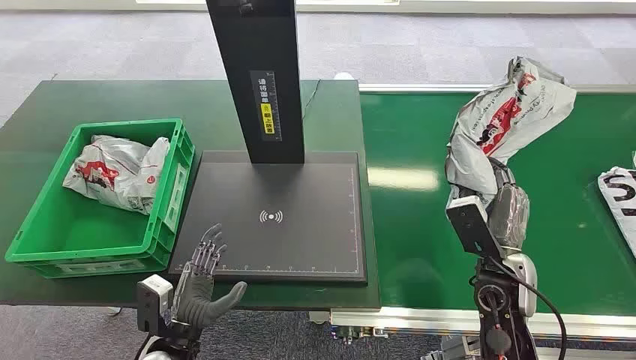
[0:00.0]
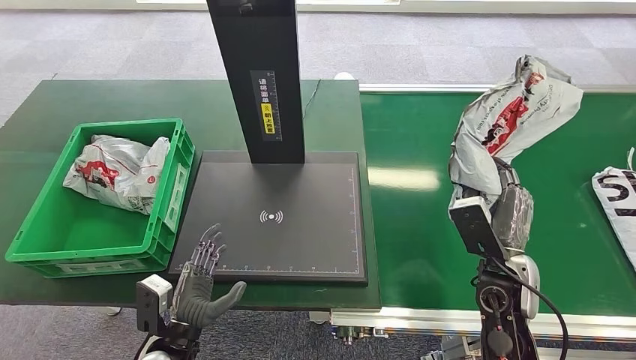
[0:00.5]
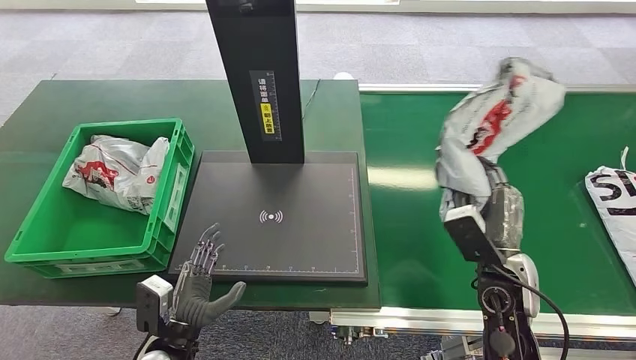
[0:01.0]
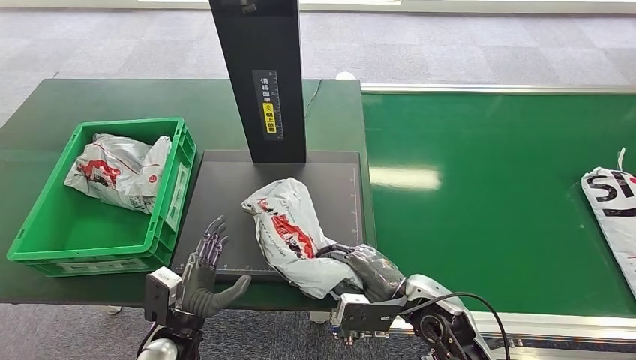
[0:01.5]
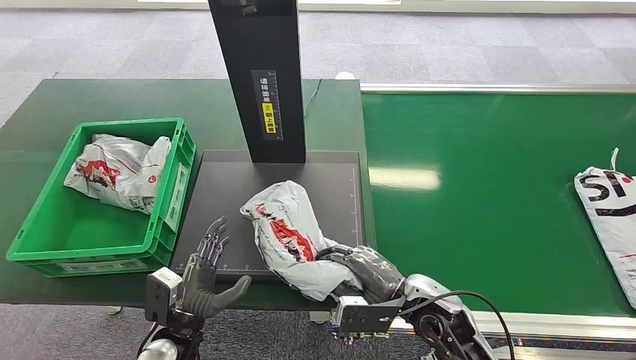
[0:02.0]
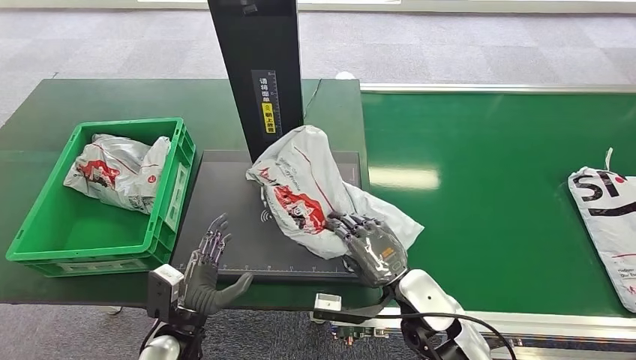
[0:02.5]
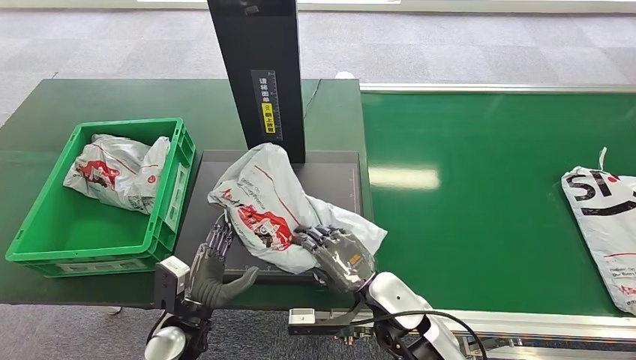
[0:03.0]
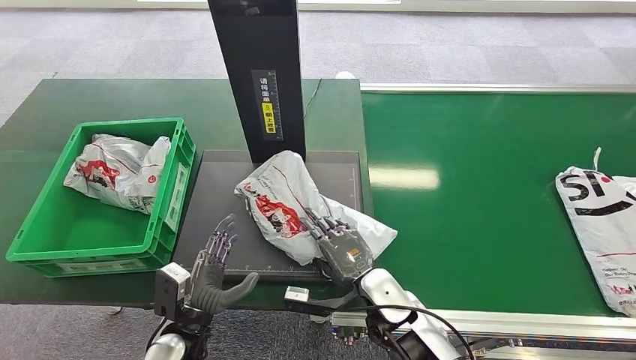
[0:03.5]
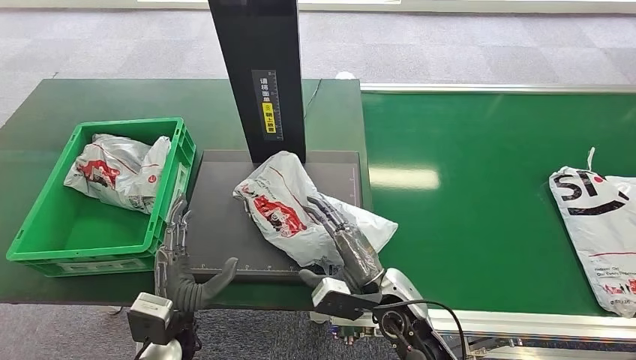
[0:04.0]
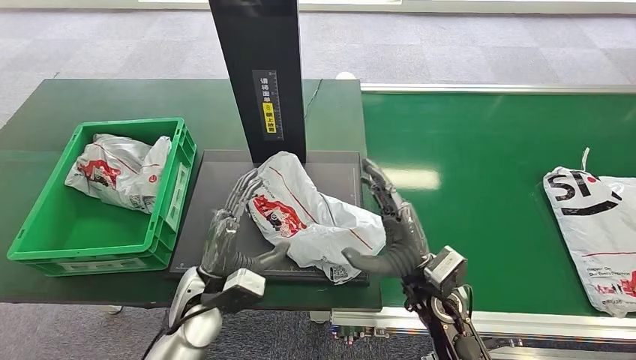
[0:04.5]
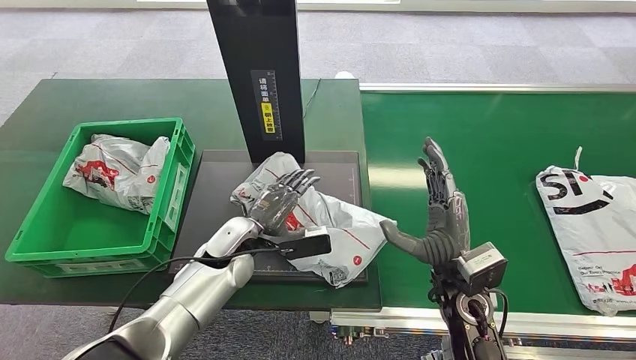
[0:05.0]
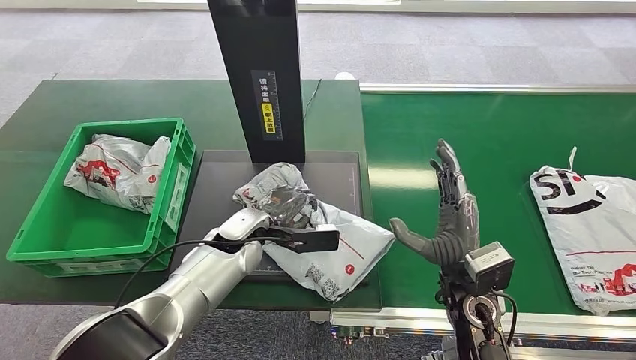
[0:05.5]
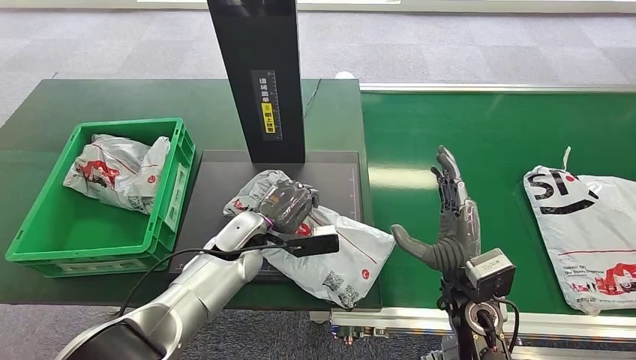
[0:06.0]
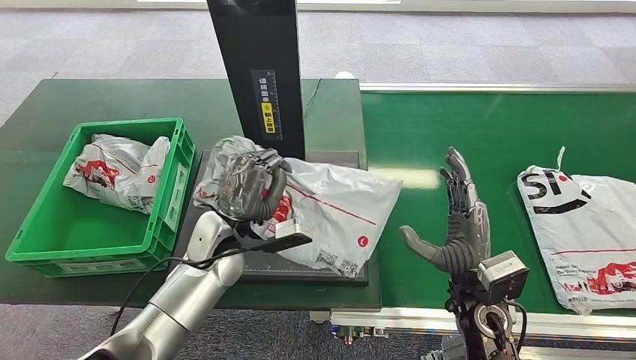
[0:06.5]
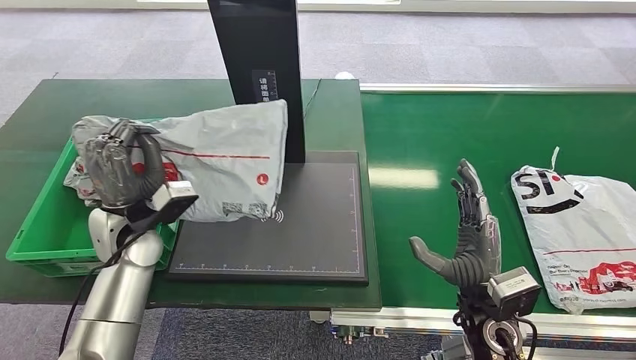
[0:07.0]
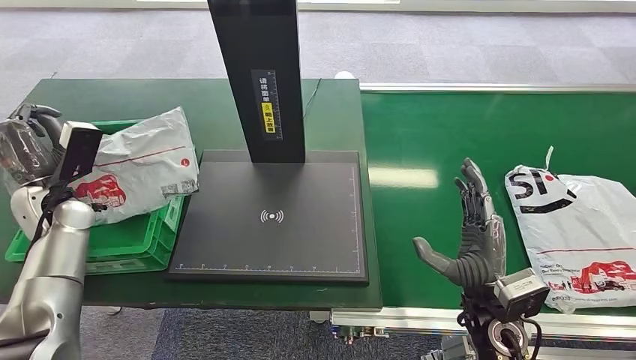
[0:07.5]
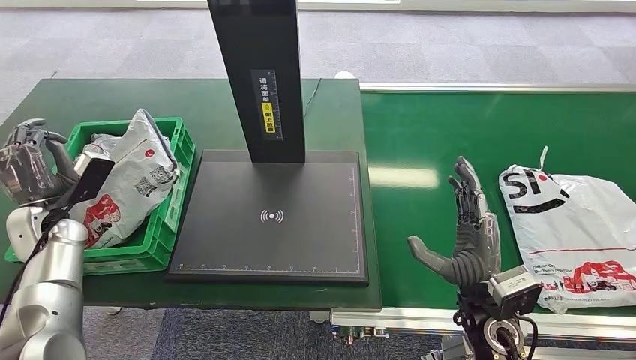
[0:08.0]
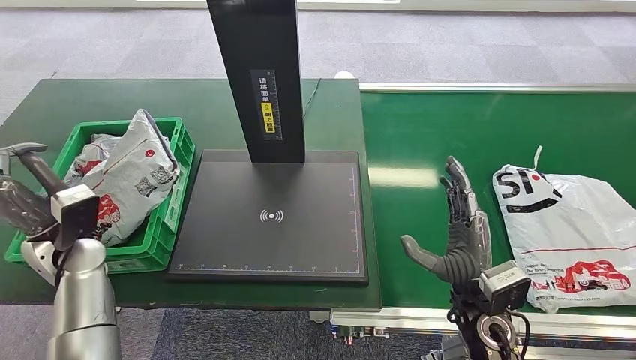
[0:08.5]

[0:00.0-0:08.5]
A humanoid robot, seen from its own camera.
Task of the whole recording: Weigh the package on the weighing device and place it in the left basket.
0:02.0 to 0:04.0: The right hand goes about 5 cm to the left.
